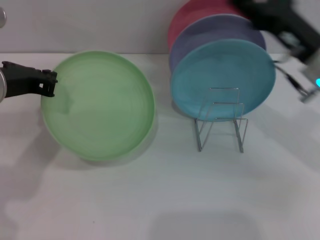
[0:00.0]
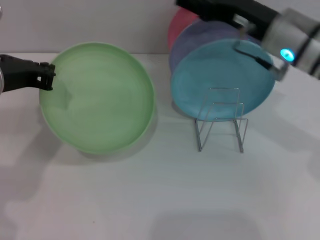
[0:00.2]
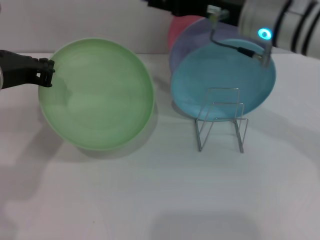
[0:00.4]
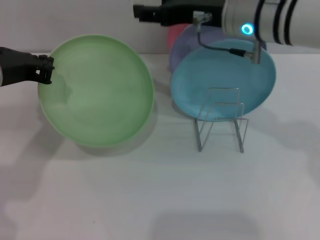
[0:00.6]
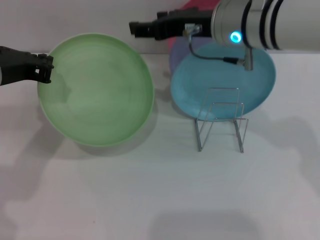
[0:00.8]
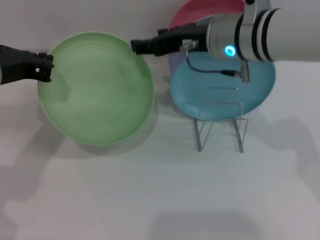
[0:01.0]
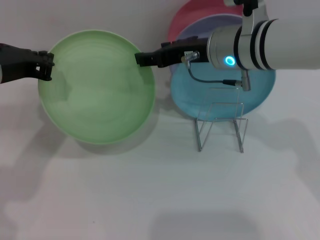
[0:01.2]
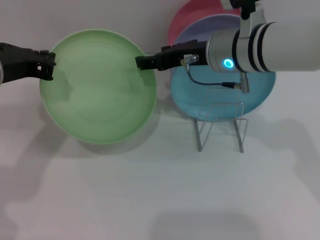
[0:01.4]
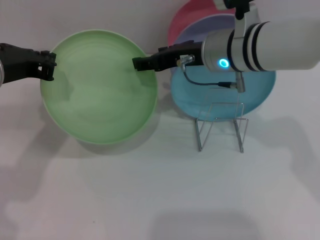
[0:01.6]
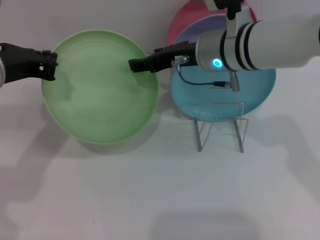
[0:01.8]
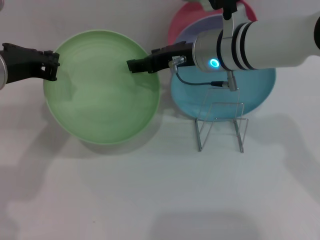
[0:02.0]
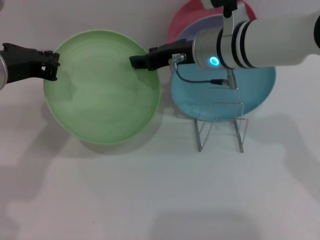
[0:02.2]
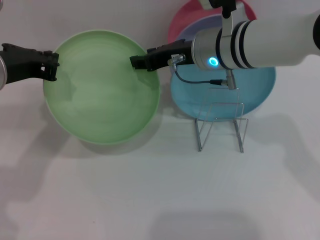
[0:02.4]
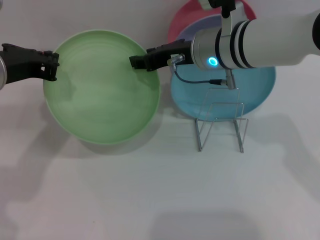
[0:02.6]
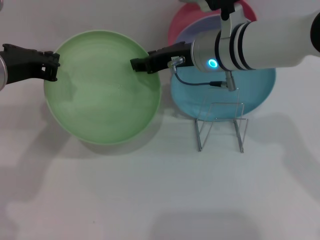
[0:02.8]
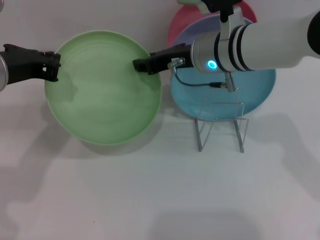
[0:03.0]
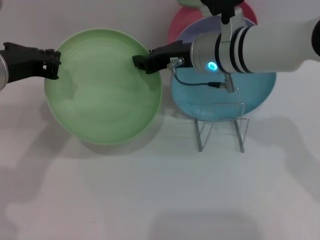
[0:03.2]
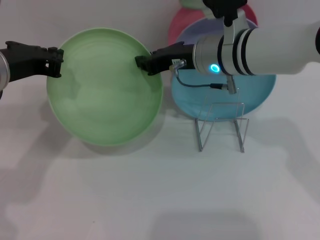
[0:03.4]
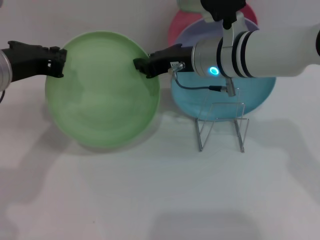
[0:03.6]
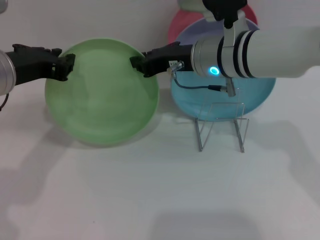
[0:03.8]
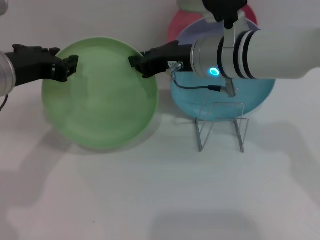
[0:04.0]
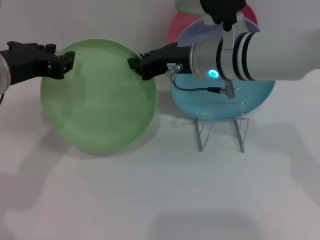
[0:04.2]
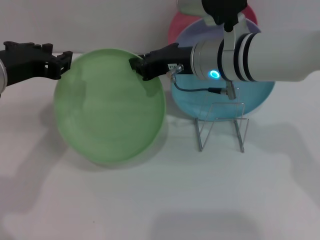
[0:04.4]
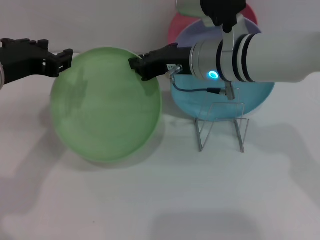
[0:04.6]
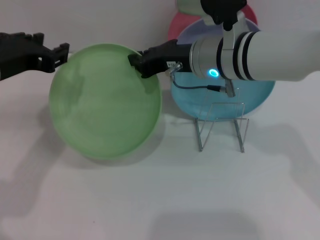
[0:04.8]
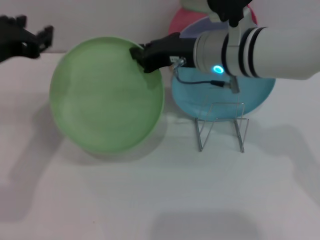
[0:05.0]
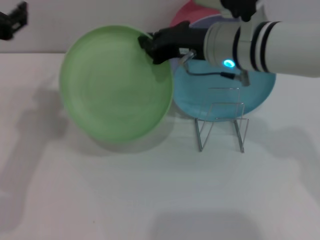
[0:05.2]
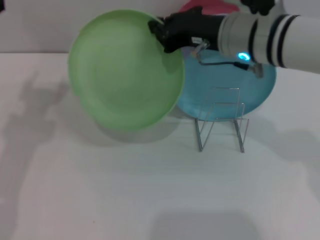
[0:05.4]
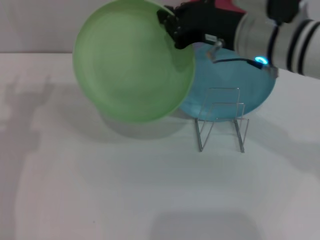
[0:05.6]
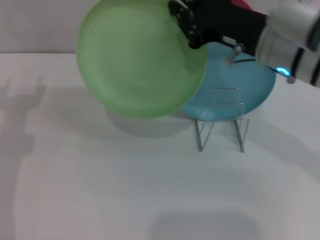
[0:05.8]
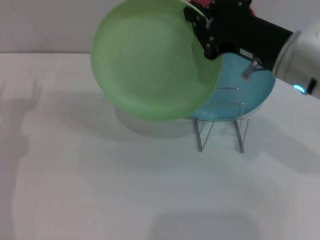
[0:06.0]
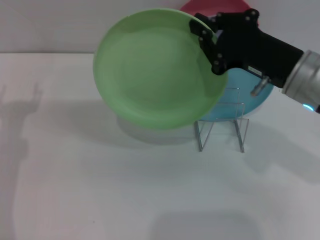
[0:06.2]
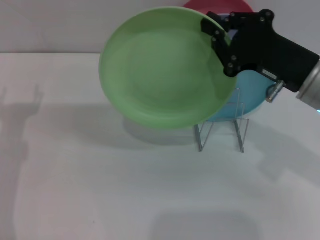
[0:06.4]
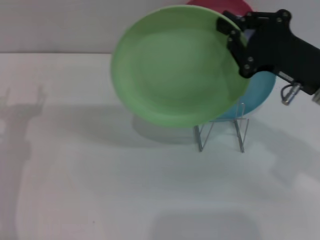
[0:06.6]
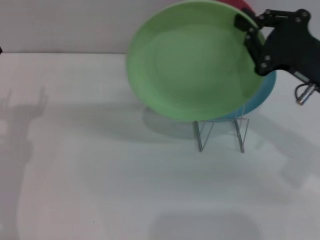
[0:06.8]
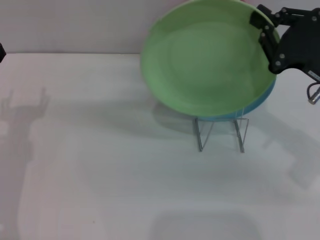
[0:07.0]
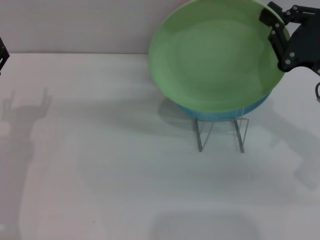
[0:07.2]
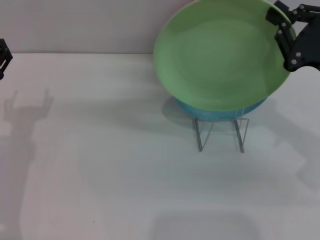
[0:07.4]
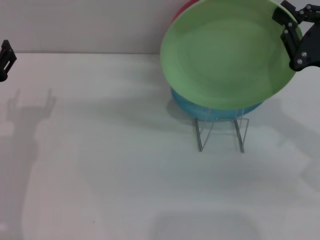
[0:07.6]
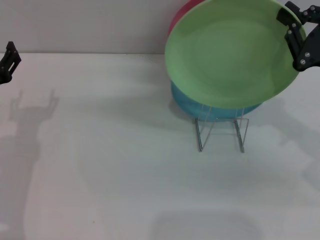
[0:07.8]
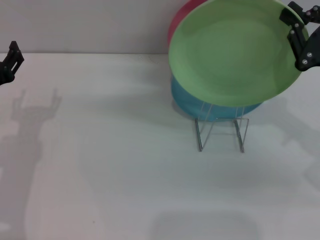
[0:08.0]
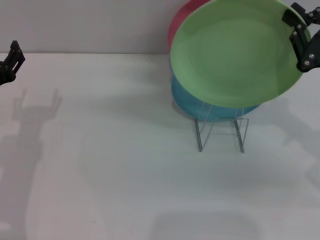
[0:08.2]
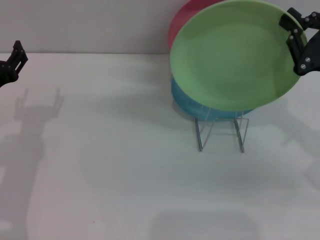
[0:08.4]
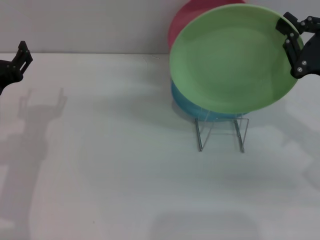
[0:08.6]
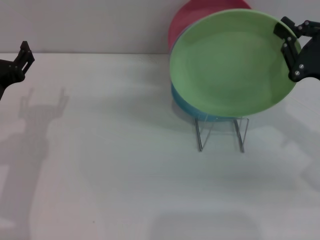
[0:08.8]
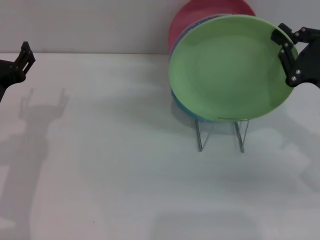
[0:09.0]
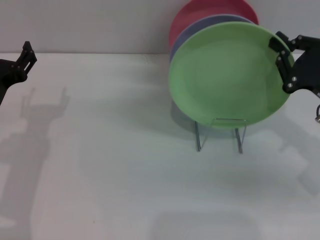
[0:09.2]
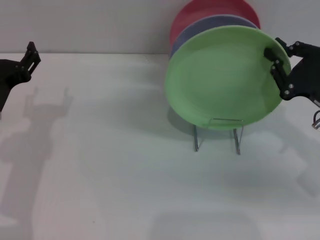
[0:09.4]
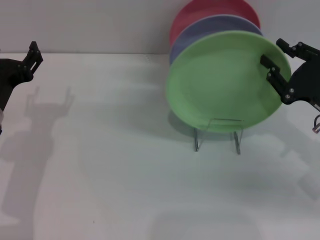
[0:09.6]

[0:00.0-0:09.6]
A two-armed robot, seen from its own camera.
Task of the whole recording: Grip the plate with one hand, pass it to the other, then set it on the shelf.
Step, 0:00.0 to 0:07.0: Pass the plate from the left gripper to the right gripper.
0:00.0 to 0:01.6: The right gripper heads to the left, covering about 10 cm.
0:01.6 to 0:03.2: There are only small adjustments of the grippers.
0:03.2 to 0:04.8: The left gripper opens up, while the right gripper closes up.
0:04.8 to 0:06.4: The left gripper goes roughly 10 cm downward and to the left, and opens its fingers. Meanwhile the right gripper is displaced to the right and backward by roughly 15 cm.
0:06.4 to 0:08.0: The right gripper heads to the right, covering approximately 10 cm.
0:08.0 to 0:09.6: The right gripper goes approximately 5 cm downward.

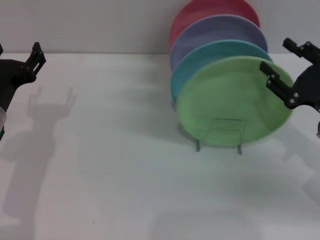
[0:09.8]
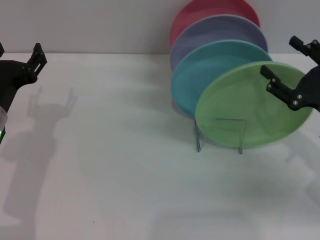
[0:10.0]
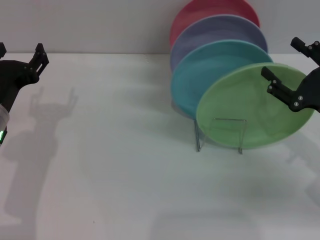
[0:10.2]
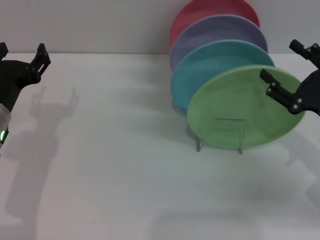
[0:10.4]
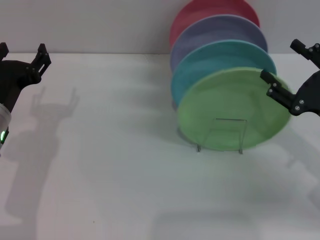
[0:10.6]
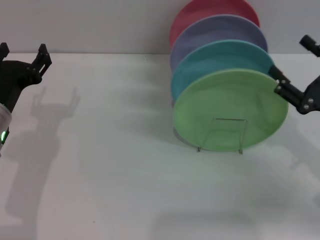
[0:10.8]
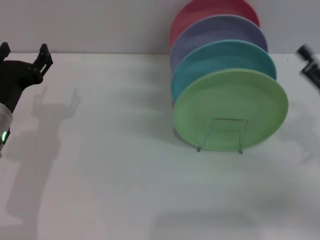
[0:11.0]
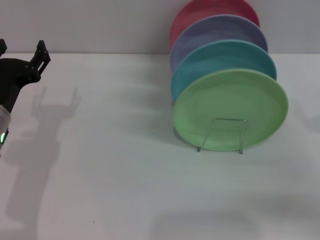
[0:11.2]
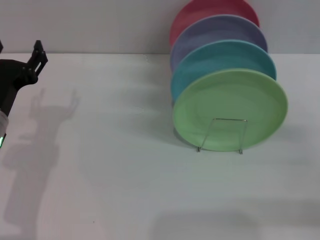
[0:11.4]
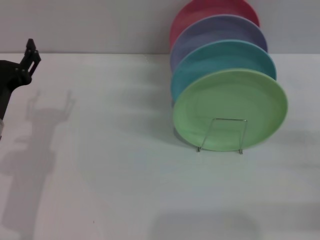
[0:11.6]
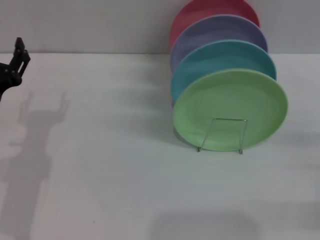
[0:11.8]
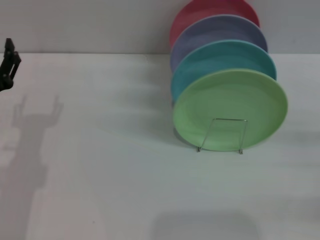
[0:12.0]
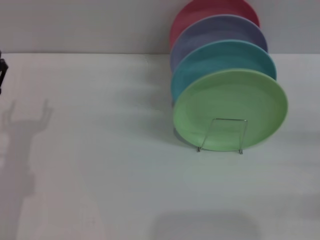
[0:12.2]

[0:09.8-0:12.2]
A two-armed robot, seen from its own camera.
Task of the whole recording: Grip the plate with one hand, pass it to the other, then set it on the shelf.
0:09.8 to 0:11.0: The right gripper opens.
0:11.0 to 0:12.2: The right gripper goes approximately 5 cm to the right. The left gripper moves some 5 cm.
